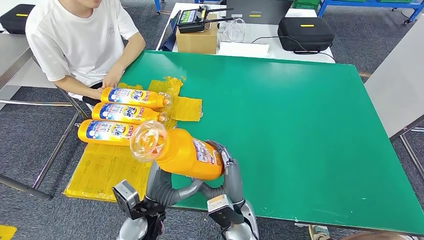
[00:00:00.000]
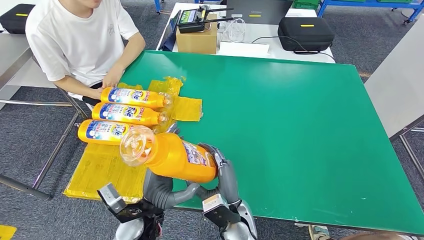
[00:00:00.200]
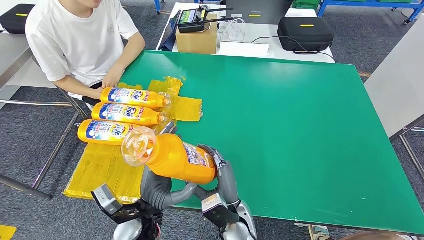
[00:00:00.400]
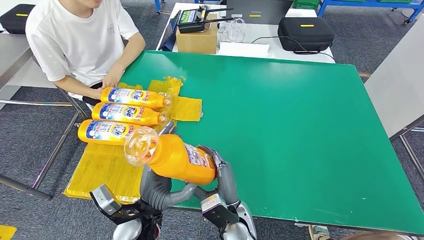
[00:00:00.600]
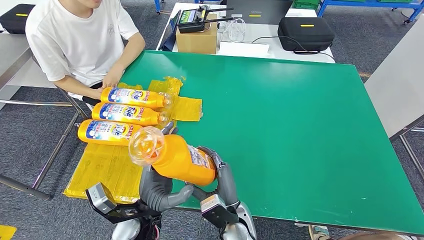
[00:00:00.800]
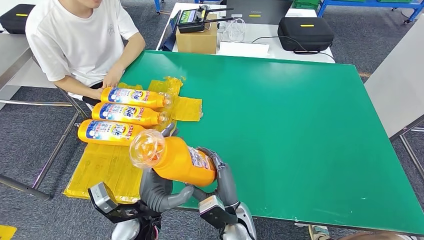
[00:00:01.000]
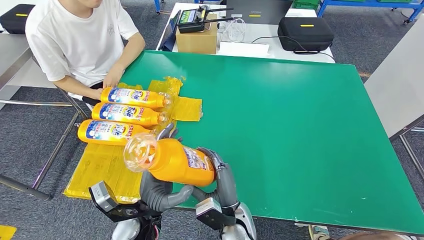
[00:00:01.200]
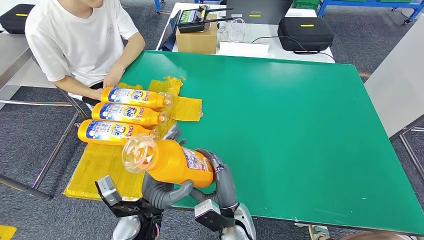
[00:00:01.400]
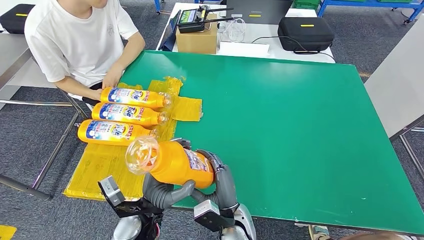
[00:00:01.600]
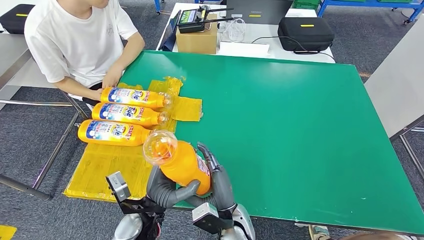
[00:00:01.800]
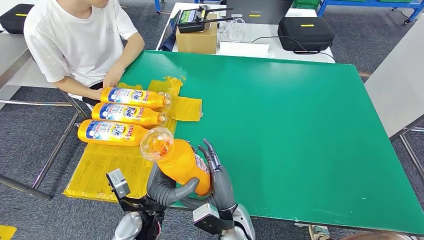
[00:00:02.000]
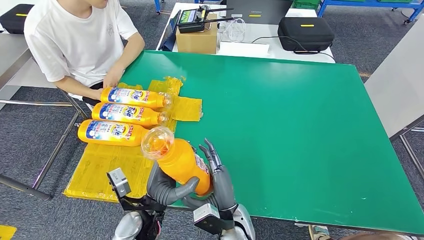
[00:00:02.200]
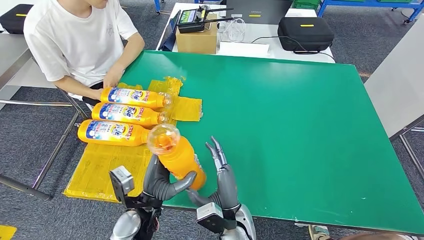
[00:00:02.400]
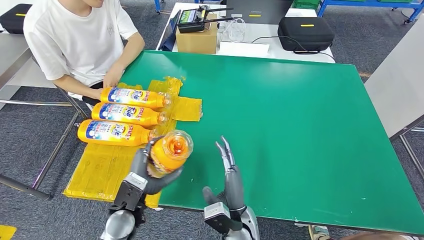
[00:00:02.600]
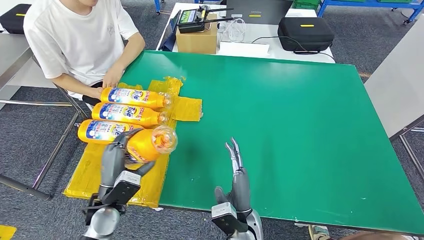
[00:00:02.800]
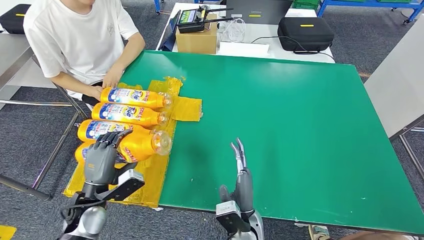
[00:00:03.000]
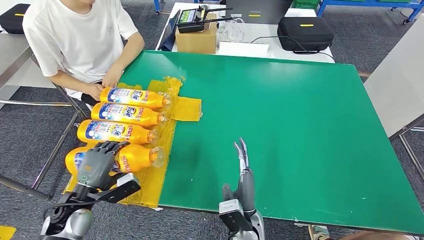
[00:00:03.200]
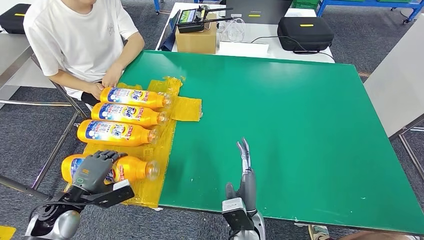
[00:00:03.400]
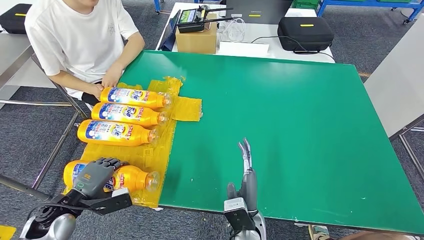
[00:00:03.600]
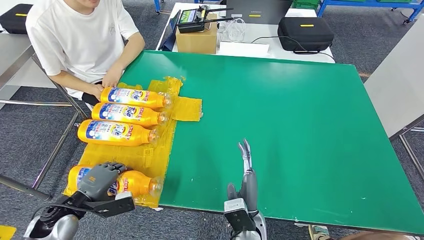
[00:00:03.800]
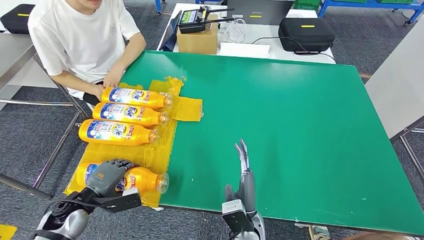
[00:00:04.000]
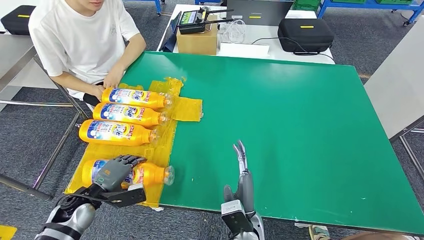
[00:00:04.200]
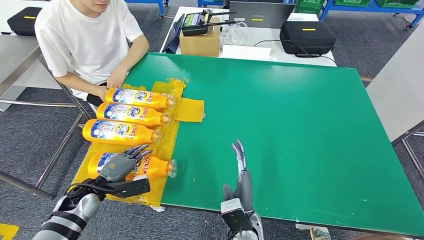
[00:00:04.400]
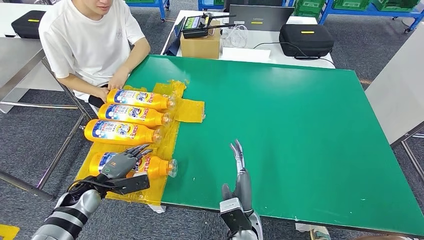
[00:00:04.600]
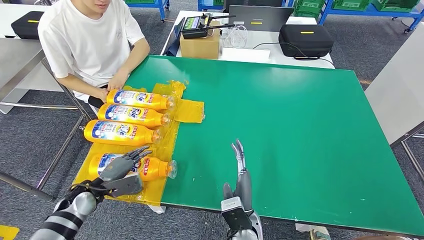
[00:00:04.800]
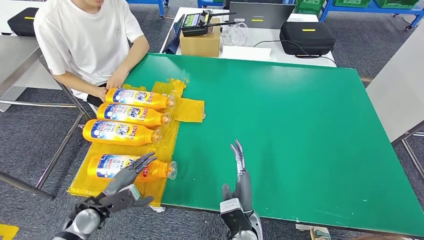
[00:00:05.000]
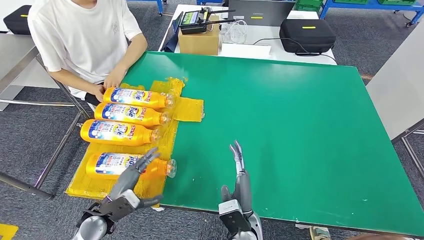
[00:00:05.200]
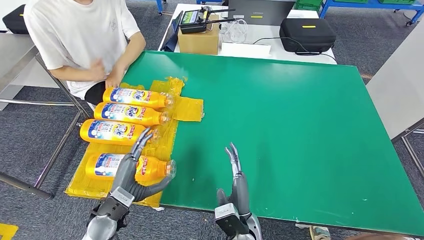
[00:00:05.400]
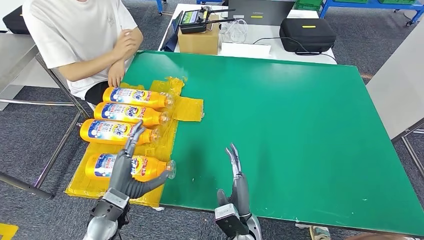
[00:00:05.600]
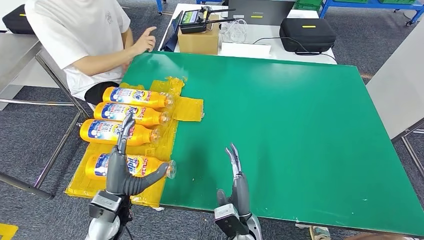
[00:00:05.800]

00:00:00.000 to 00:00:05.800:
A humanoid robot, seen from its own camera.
Step, 00:00:00.000 to 00:00:05.800: Flip the bottle to face forward.
00:00:00.000 to 00:00:01.400: The hands move only a little.
00:00:01.400 to 00:00:02.800: The left hand travels to the left by roughly 10 cm.
